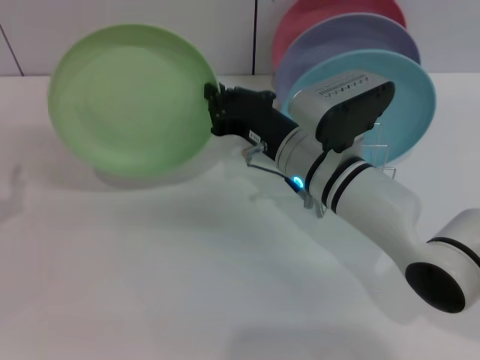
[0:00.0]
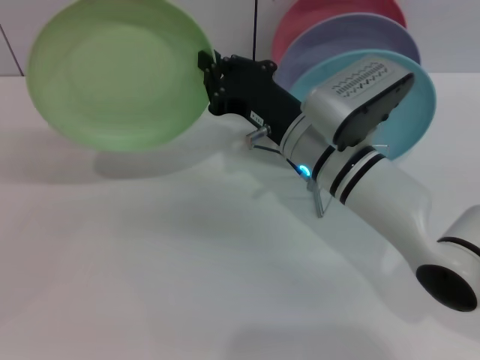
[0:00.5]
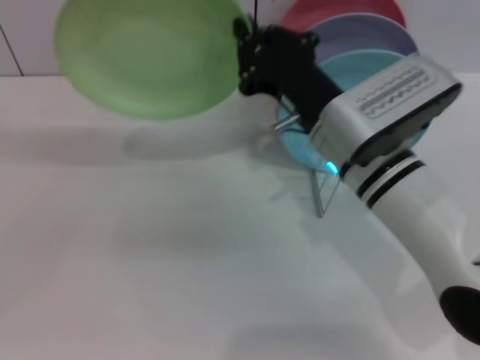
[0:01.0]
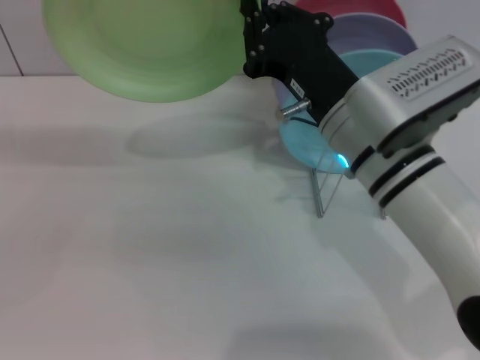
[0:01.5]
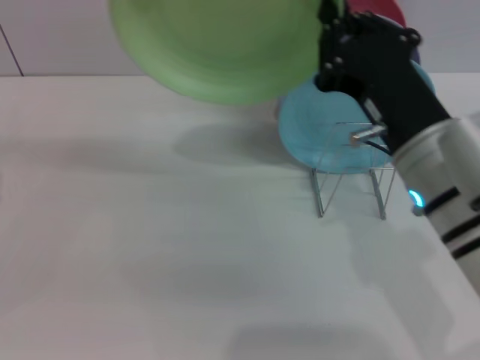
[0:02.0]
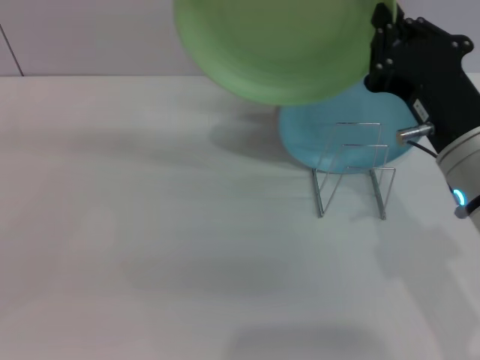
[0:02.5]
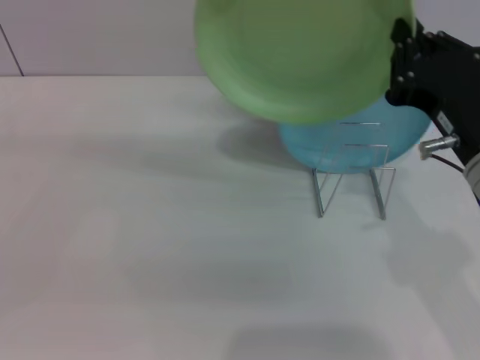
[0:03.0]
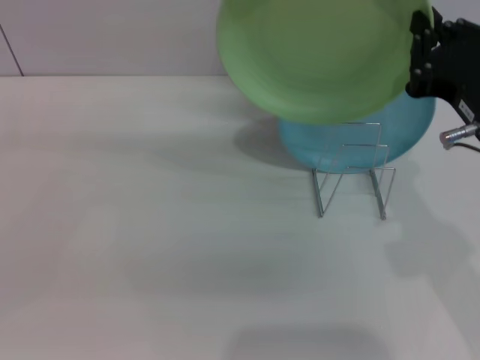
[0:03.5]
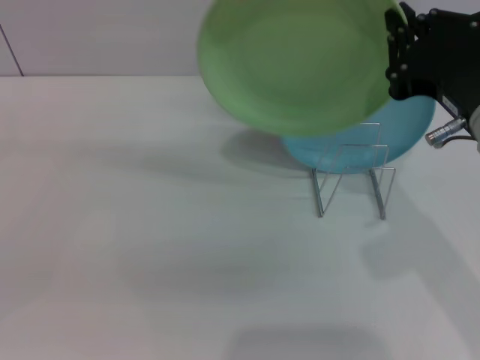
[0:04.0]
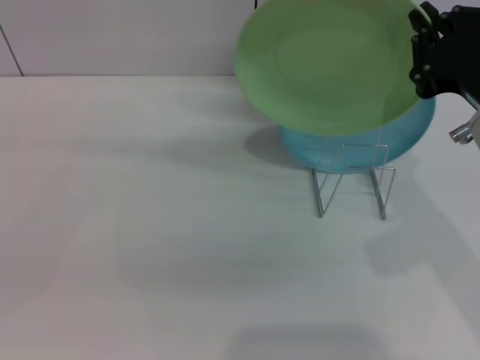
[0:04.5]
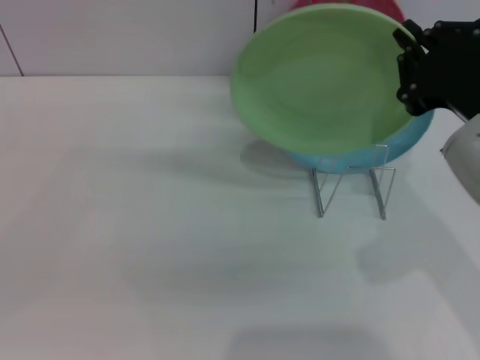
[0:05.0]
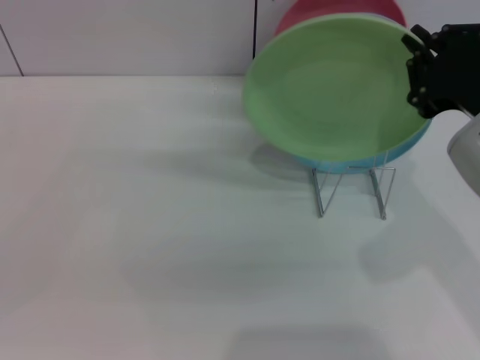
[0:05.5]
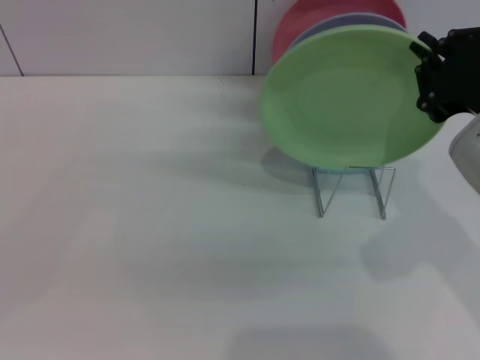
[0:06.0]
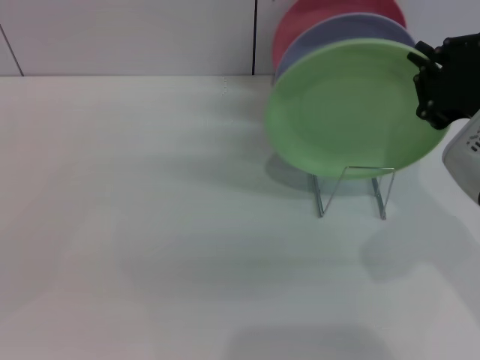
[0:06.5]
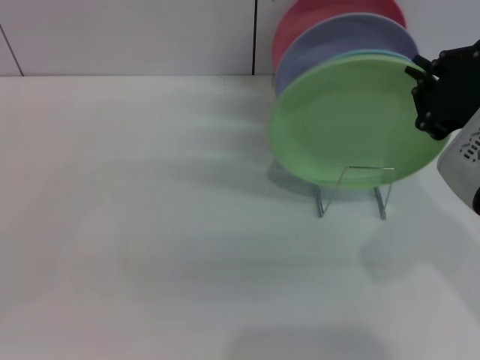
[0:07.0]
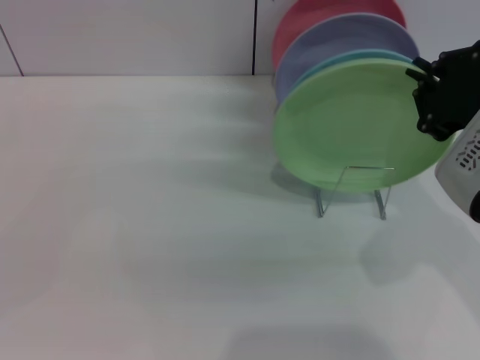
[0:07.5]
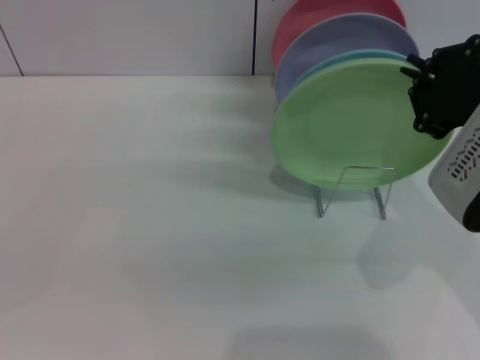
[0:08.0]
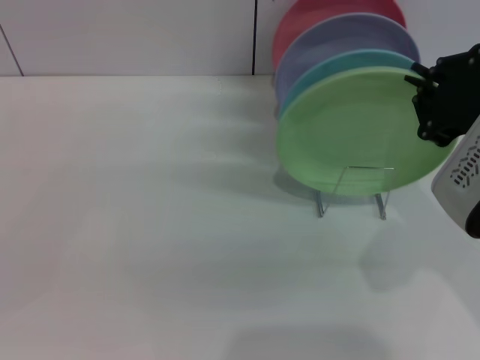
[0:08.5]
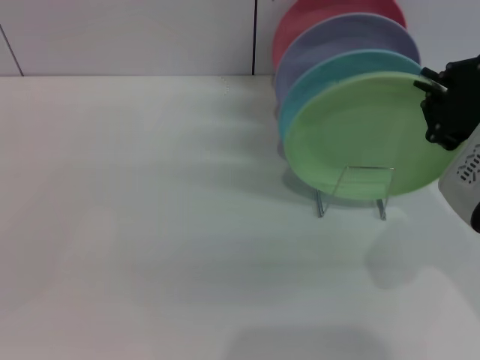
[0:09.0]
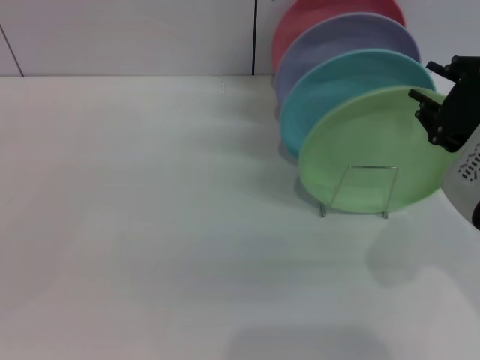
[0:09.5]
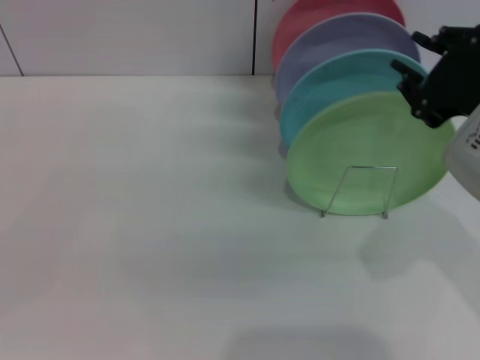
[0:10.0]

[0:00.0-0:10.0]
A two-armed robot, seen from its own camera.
Task of the whole recording: Grip the plate with one hand, pass it to the other, then set it on the shelf.
Step, 0:00.0 to 0:09.5: Place the plate on the shelf with the right gripper.
0:00.0 to 0:02.0: The right gripper travels backward, upward and to the right by about 15 cm.
0:02.0 to 0:04.0: The right gripper changes place by about 5 cm.
0:06.0 to 0:08.0: The grippers stay close to where they were, moving slightly.
0:08.0 to 0:10.0: The right gripper opens its fingers.

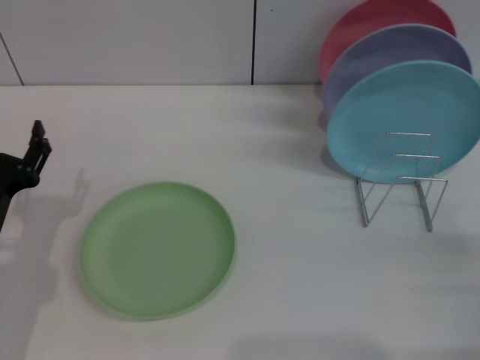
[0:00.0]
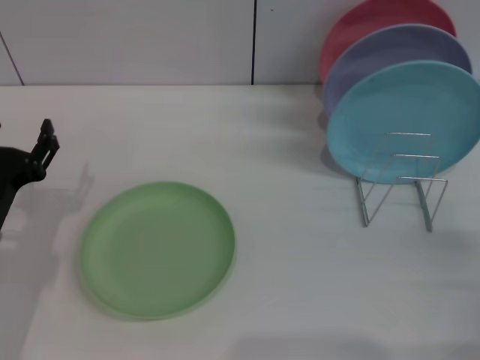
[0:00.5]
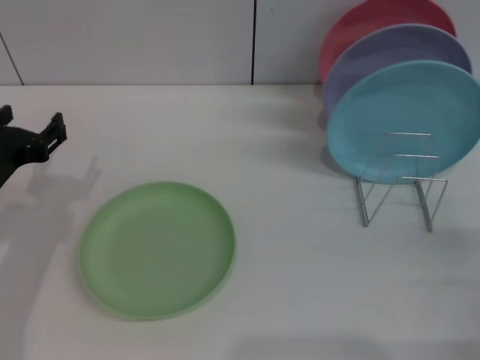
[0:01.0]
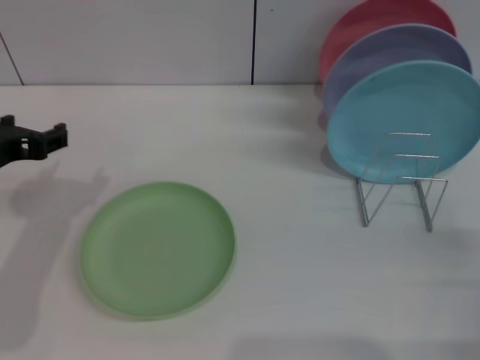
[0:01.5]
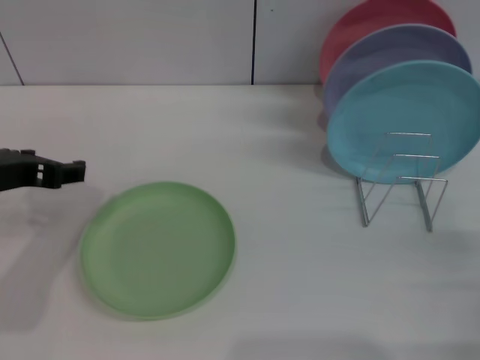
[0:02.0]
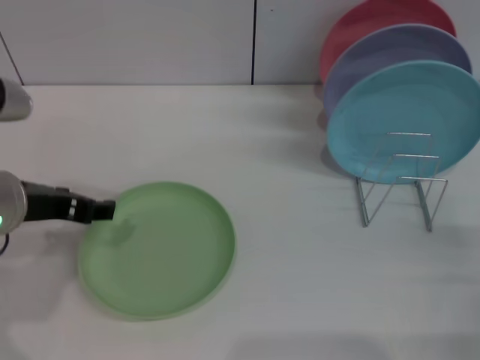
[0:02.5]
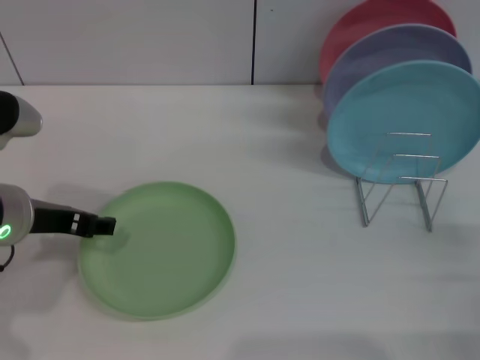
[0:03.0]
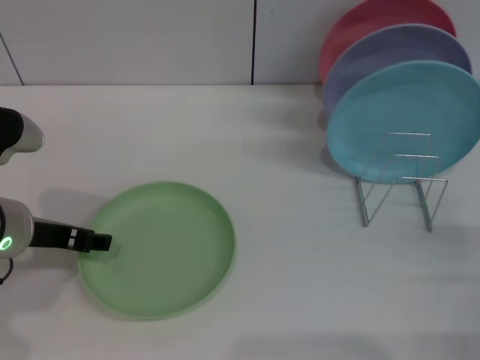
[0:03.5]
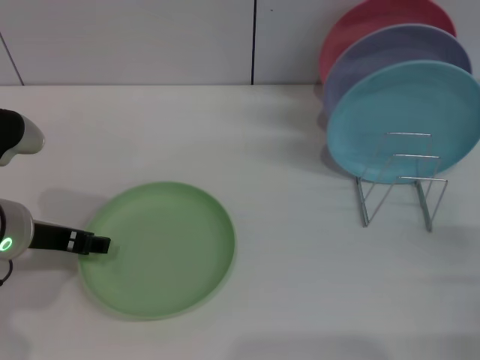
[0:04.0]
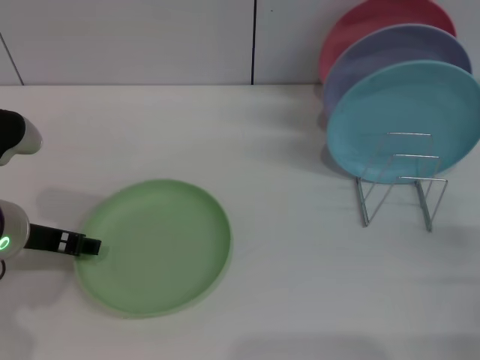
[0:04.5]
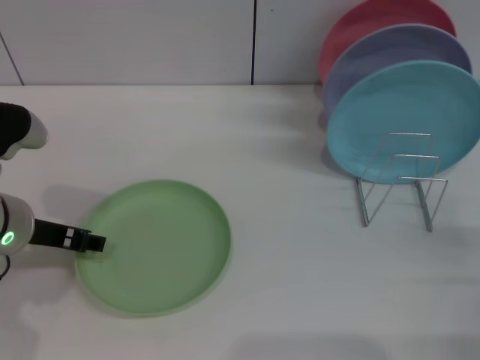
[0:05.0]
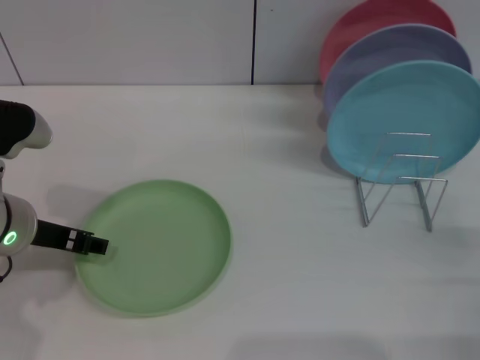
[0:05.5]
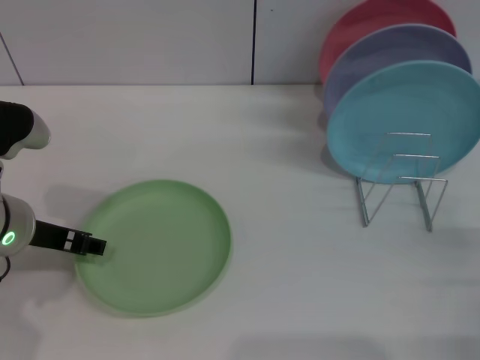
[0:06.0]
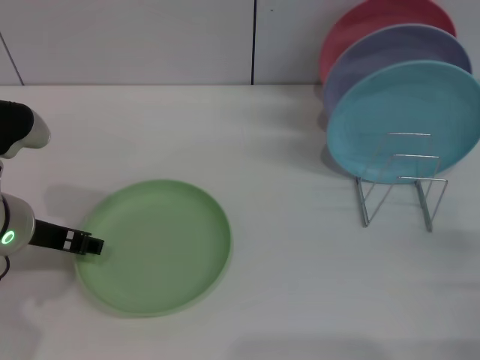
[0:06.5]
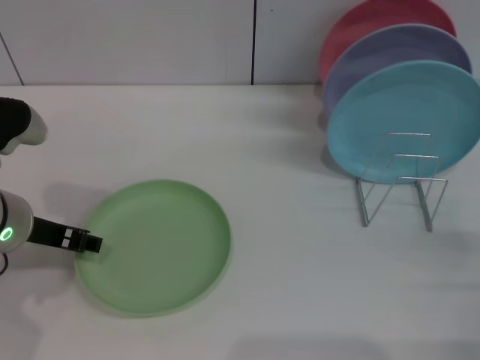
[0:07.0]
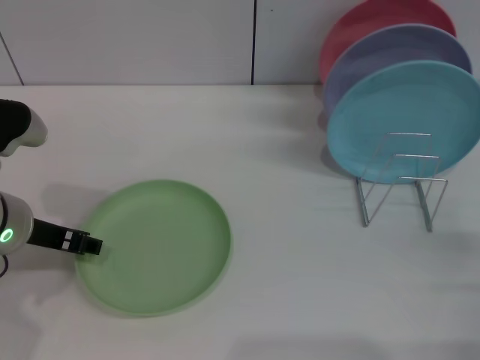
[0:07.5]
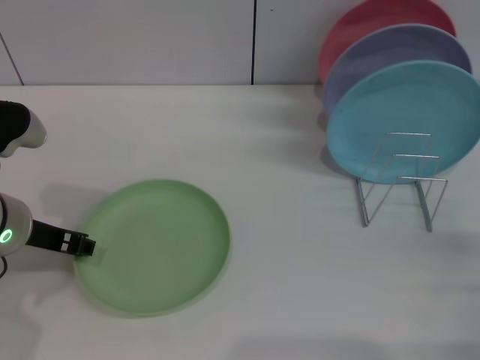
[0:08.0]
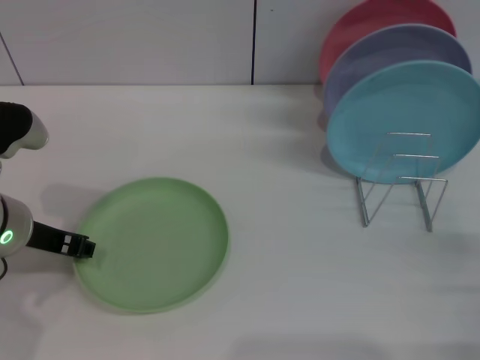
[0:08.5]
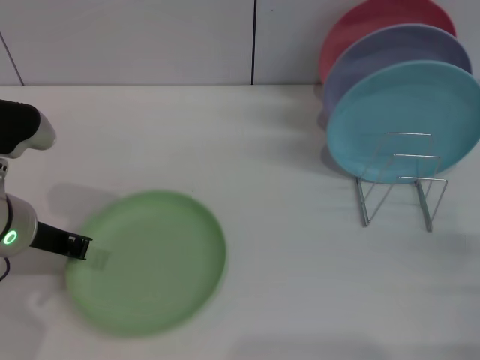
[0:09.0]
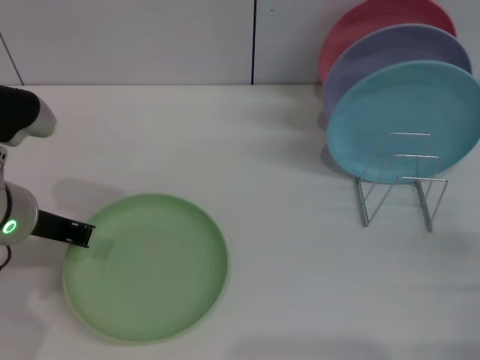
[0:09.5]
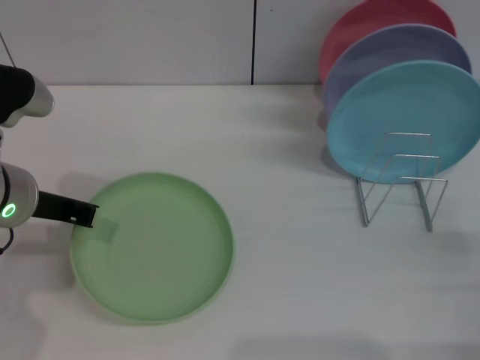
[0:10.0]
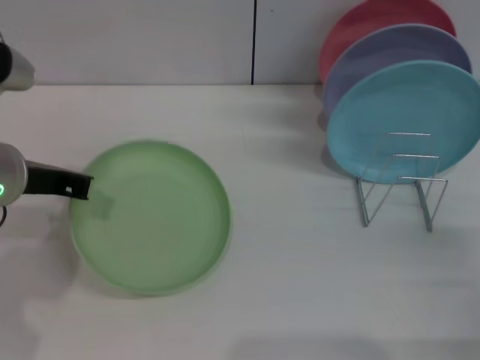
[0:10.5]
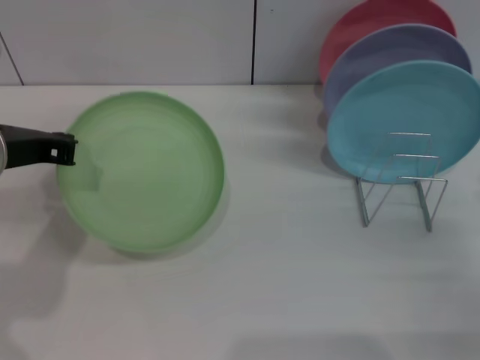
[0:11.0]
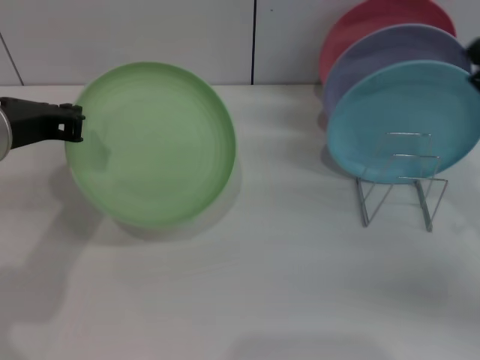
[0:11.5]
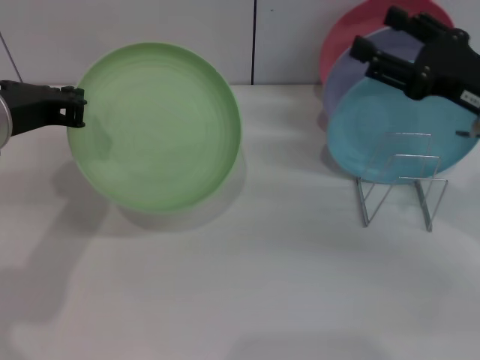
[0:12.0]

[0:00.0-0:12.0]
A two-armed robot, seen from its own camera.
Task of the whole recording: Grip the plate with one hand, pass it to the other, then set it on the shelf.
Step, 0:00.0 to 0:10.5: Pick up the plate with the left gripper.
0:00.0 to 0:02.0: The left gripper is displaced upward by about 15 cm.
0:02.0 to 0:04.0: The left gripper moves downward, about 5 cm.
0:04.0 to 0:06.0: The two grippers keep their place.
0:06.0 to 0:08.0: Both grippers stay about where they are.
0:08.0 to 0:10.0: The left gripper closes up.
0:10.0 to 0:12.0: The right gripper travels forward, upward and to the left by about 20 cm. The left gripper heads upward, covering some 5 cm.

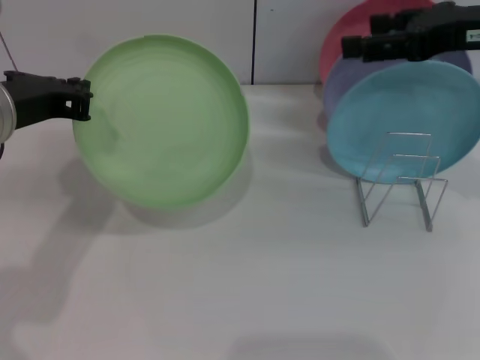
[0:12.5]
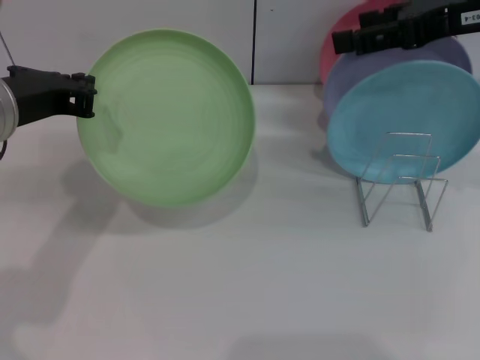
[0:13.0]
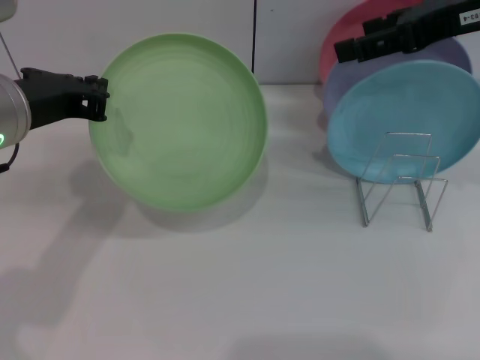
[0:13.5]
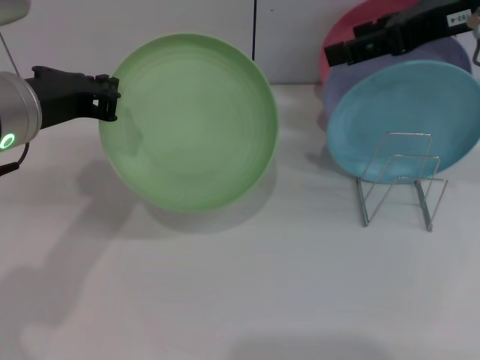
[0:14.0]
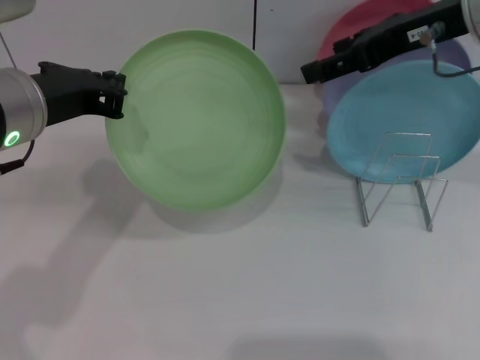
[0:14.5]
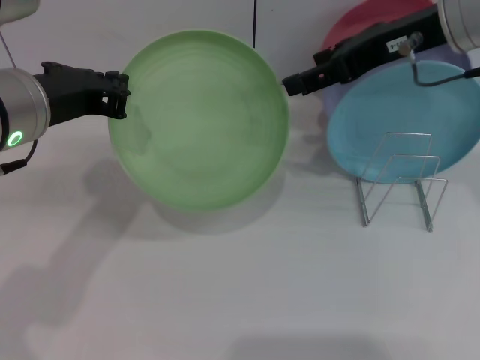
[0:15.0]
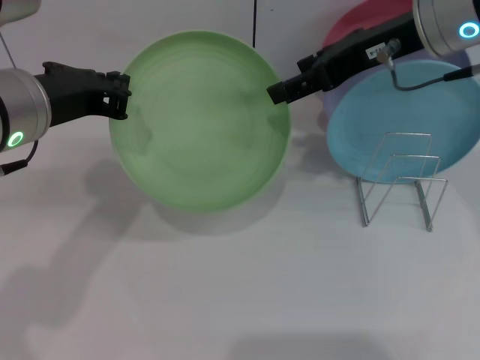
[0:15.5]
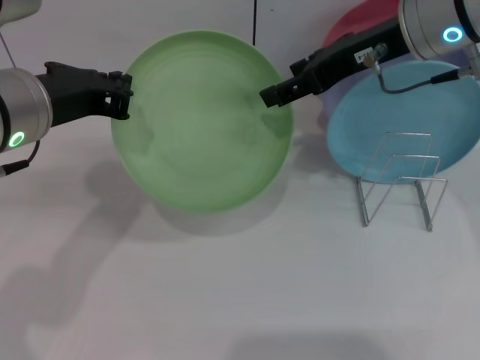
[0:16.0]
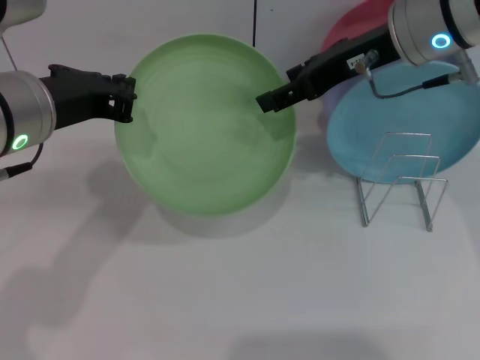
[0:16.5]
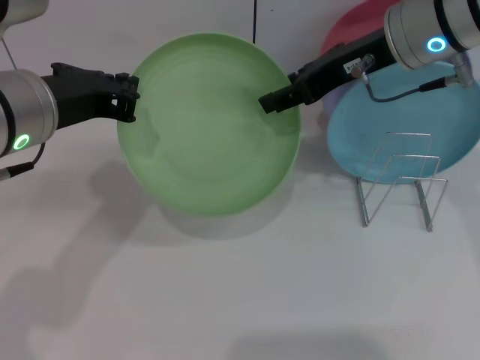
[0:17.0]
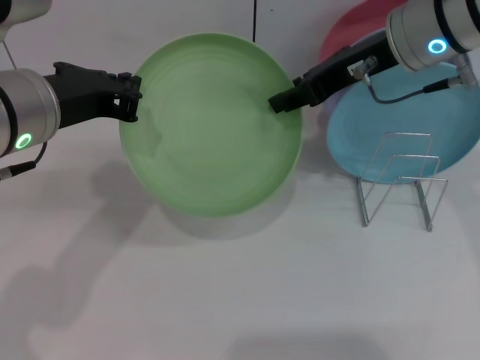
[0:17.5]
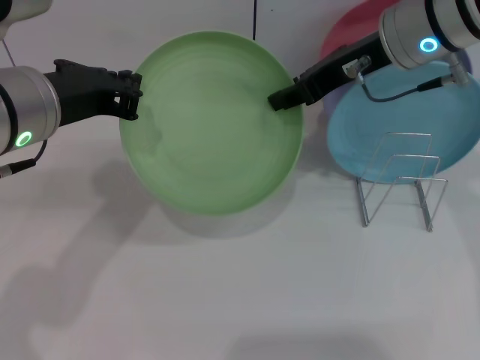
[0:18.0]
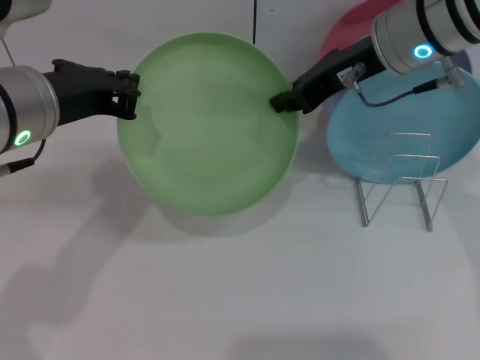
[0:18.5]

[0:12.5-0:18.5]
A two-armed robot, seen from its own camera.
Task of the whole recording: Grip the plate with one hand, pass it to the other, then set it on the shelf.
0:12.5 to 0:14.5: The right gripper shifts roughly 5 cm to the left.
0:14.5 to 0:16.5: The right gripper shifts by about 5 cm.
0:16.5 to 0:18.5: The right gripper closes its fingers.
